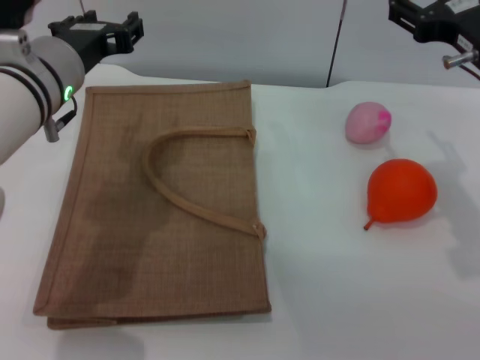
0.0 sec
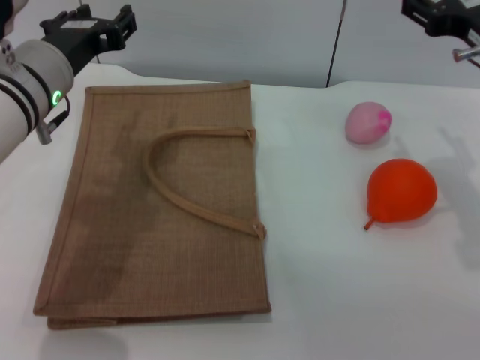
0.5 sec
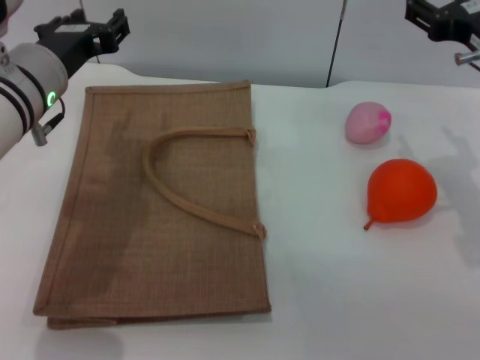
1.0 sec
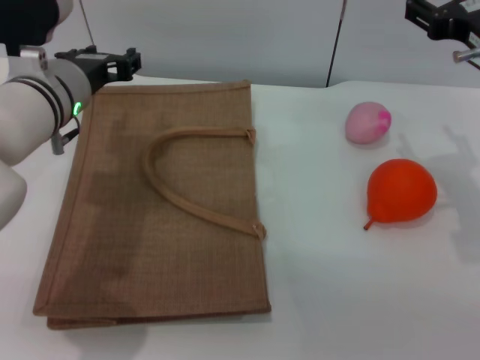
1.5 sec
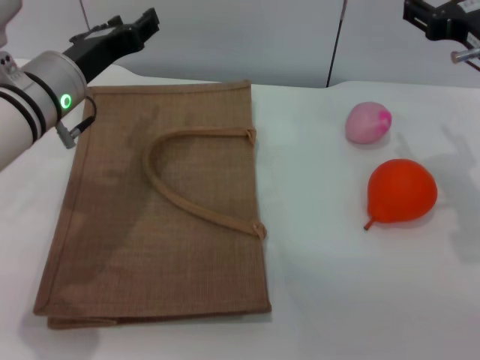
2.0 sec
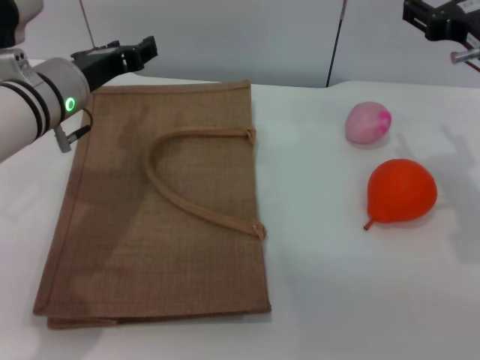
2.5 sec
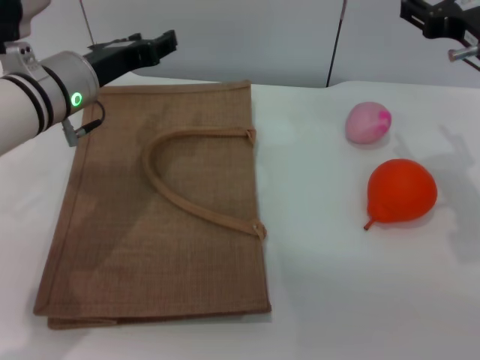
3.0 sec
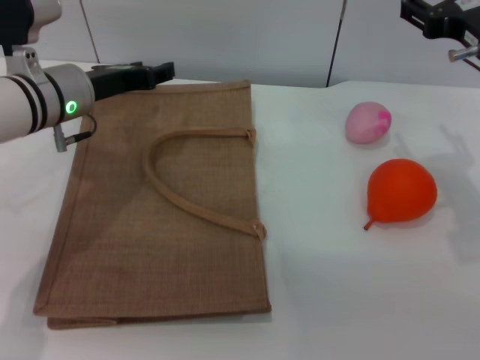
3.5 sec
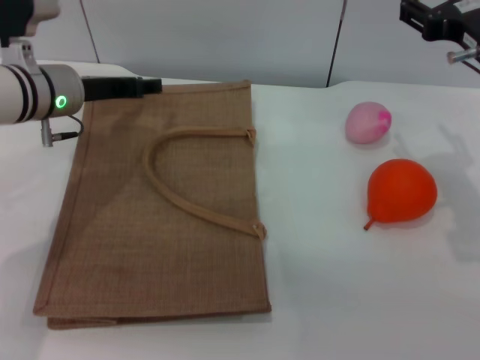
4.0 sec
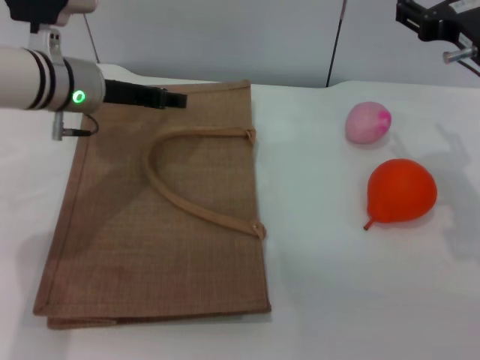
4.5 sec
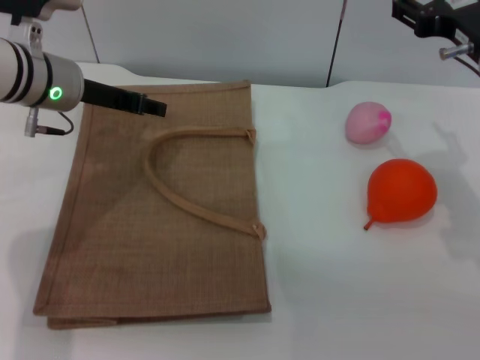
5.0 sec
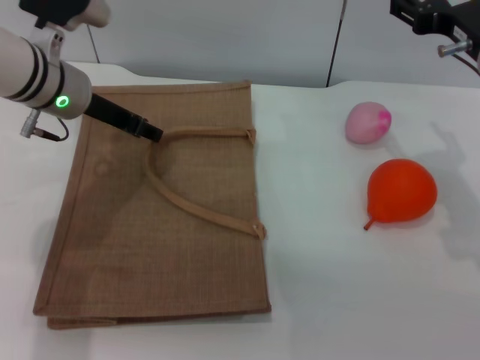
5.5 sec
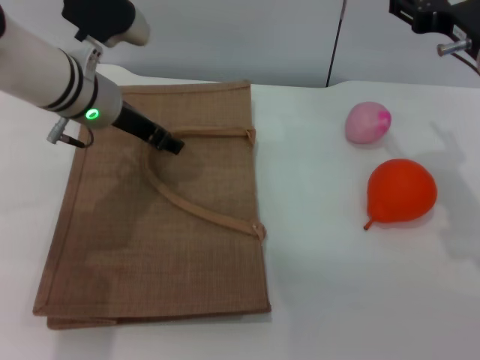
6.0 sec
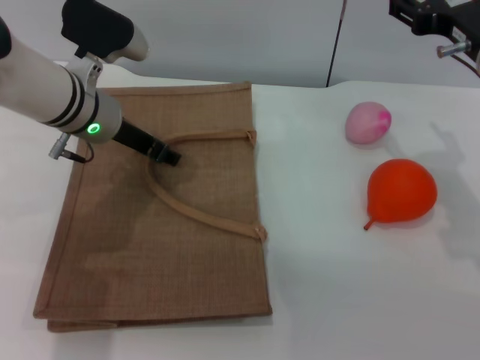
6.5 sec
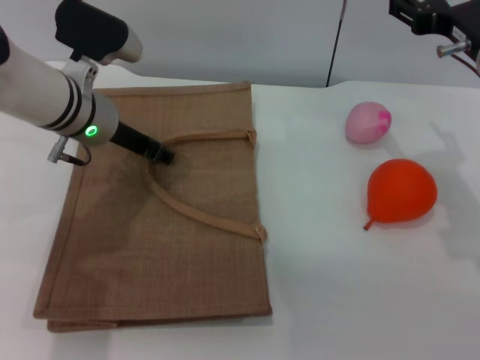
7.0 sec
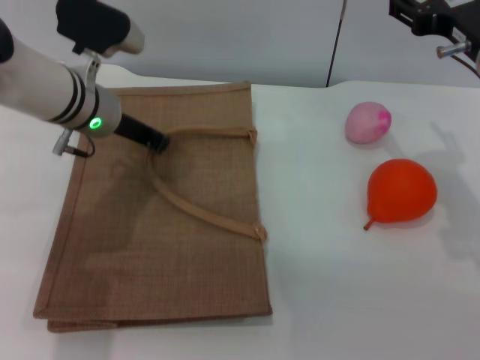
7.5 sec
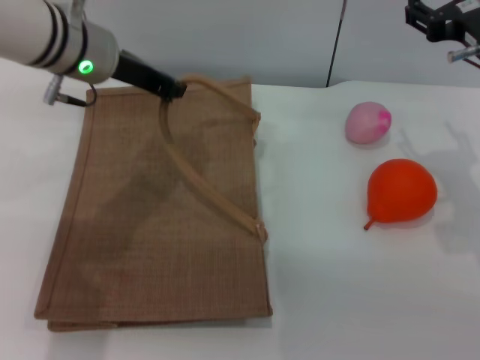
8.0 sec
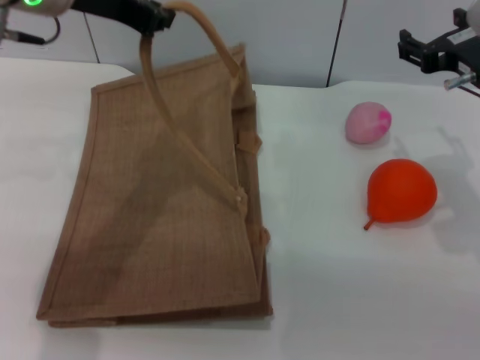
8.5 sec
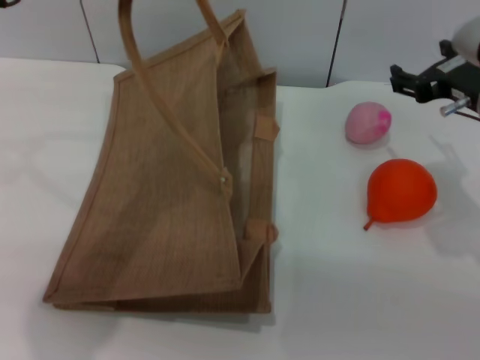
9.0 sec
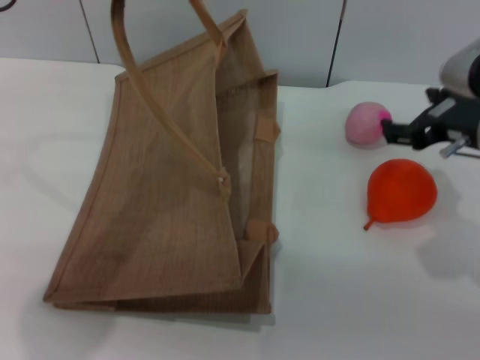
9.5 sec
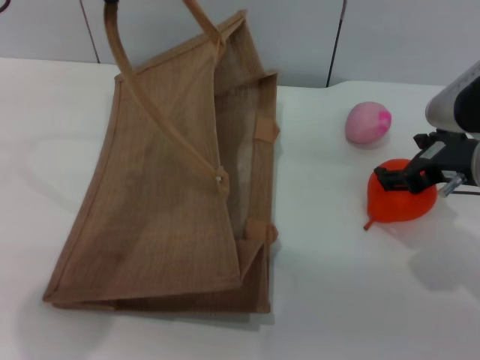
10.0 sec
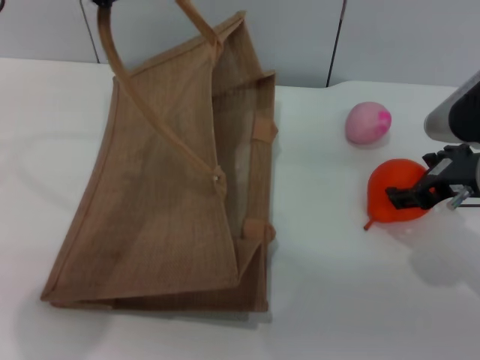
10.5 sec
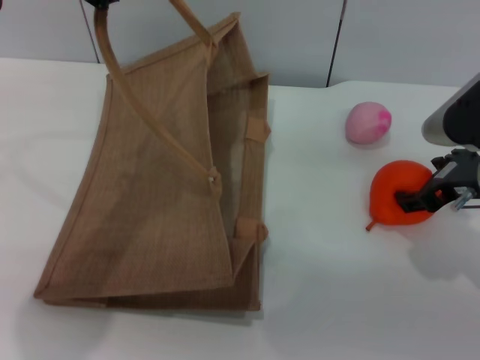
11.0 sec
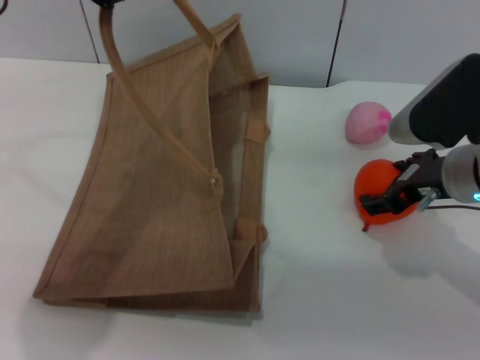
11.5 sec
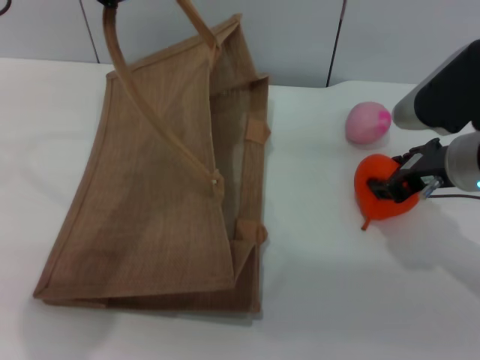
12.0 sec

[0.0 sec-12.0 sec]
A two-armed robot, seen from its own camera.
Task of the whole recording: pick up the orange and peach from the table and place it in the brown handbag.
Step, 0.0 sec to 8.5 sec: Lift the woven bag with the left gripper to open it.
2.0 sec to 4.0 sec: The left gripper shifts roughly 5 cm forward.
4.0 sec to 6.0 sec: The left gripper ends up roughly 5 cm from where it was.
6.0 sec to 8.0 sec: The left gripper goes approximately 5 cm upward, and closes up.
8.0 sec to 10.0 sec: The left gripper moves upward and backward, roughly 15 cm; the right gripper moves some 5 cm.
10.0 sec to 12.0 sec: The right gripper closes up.

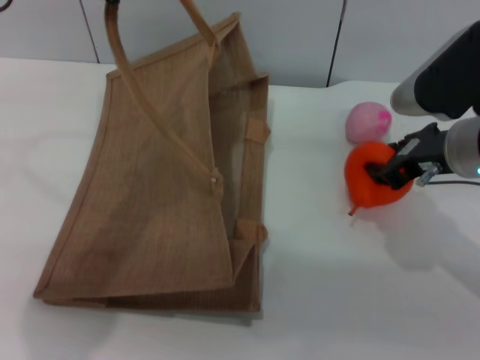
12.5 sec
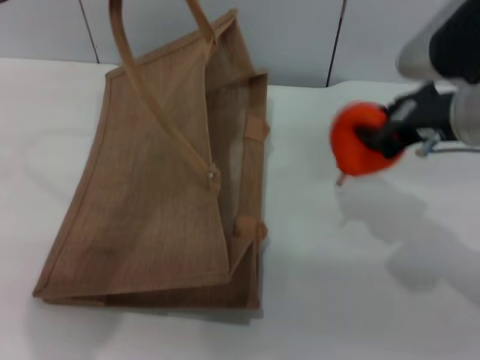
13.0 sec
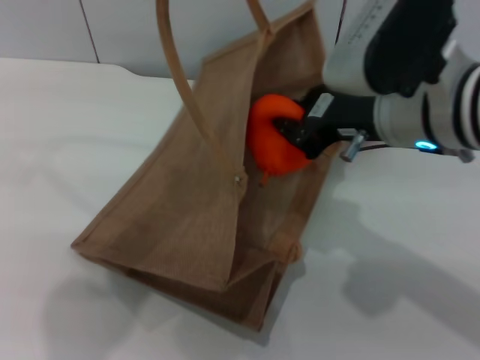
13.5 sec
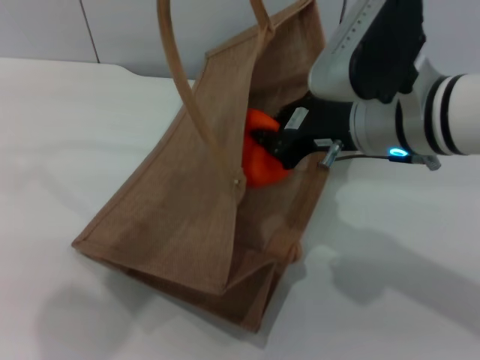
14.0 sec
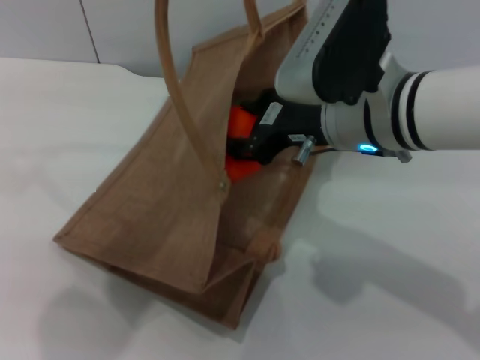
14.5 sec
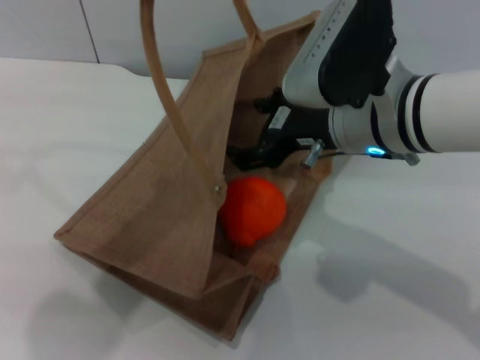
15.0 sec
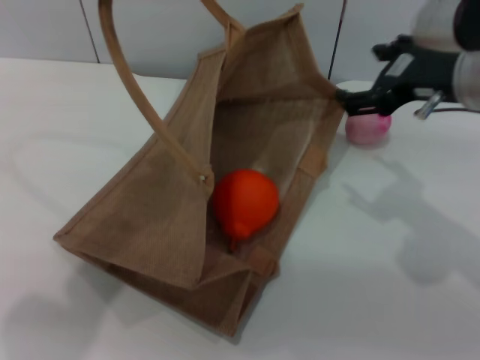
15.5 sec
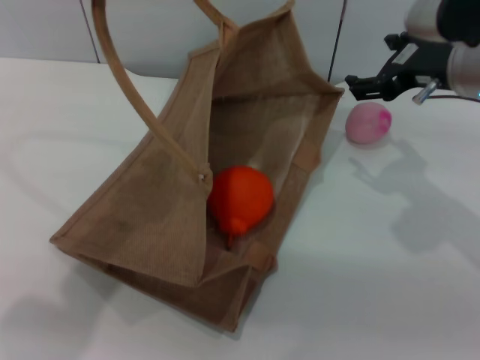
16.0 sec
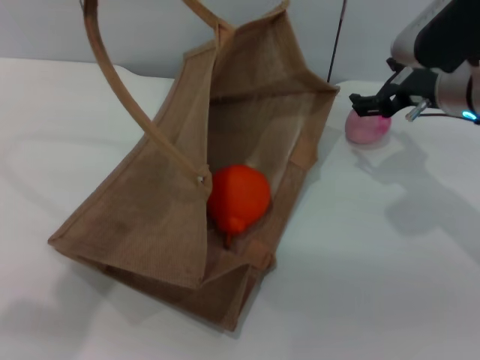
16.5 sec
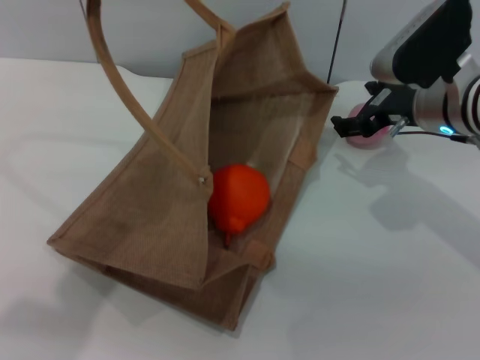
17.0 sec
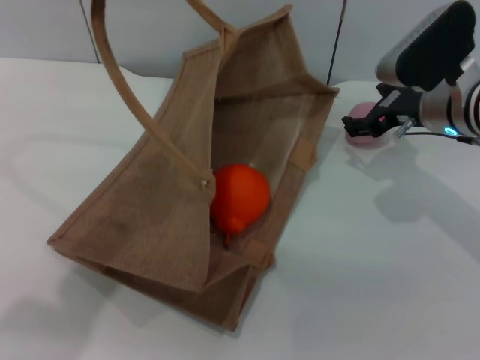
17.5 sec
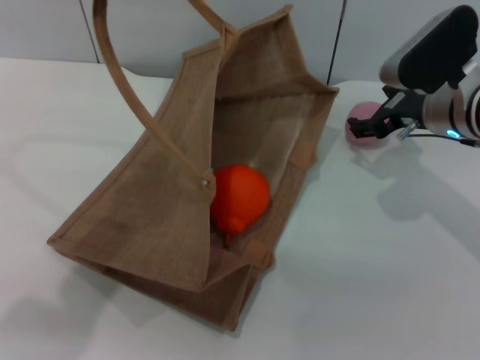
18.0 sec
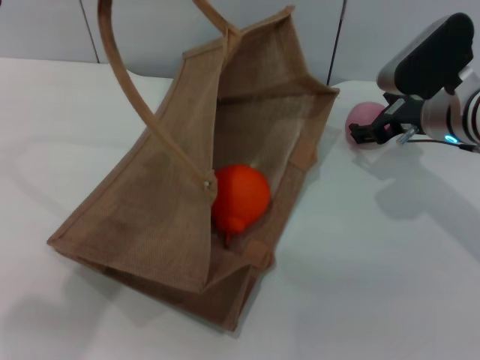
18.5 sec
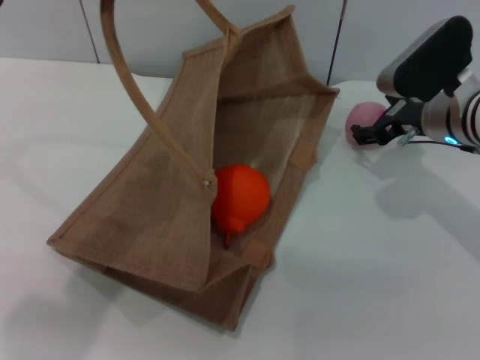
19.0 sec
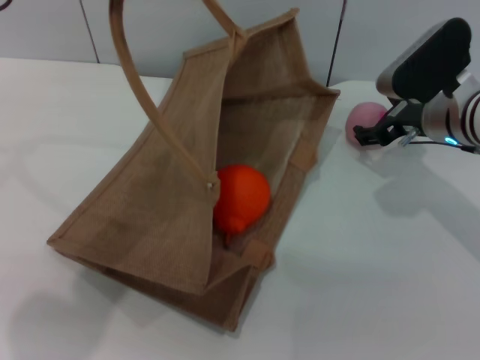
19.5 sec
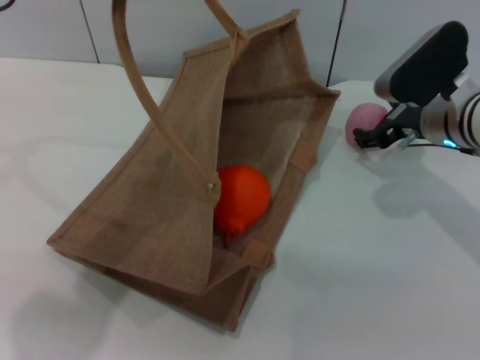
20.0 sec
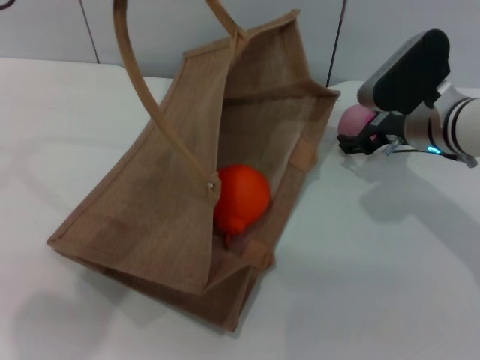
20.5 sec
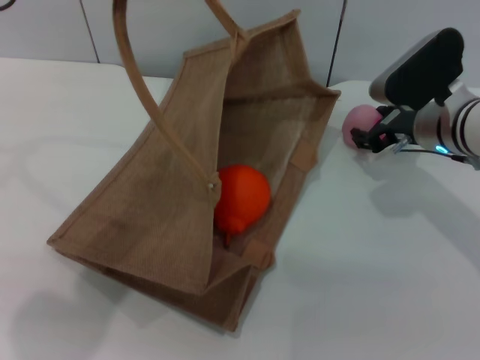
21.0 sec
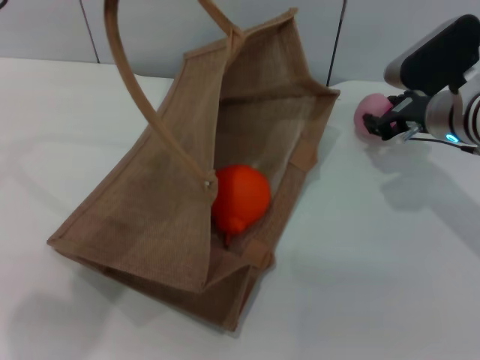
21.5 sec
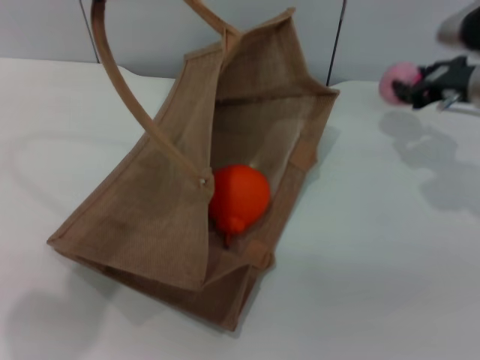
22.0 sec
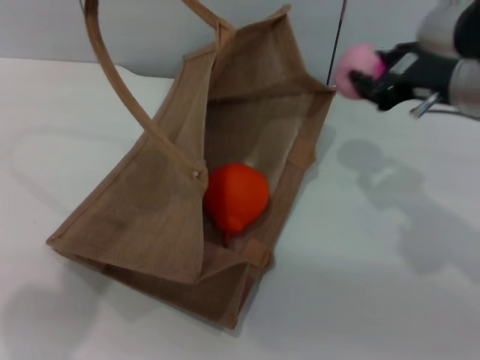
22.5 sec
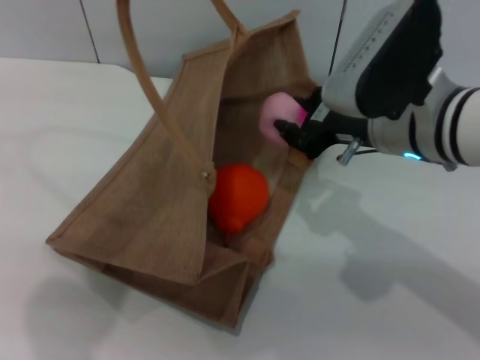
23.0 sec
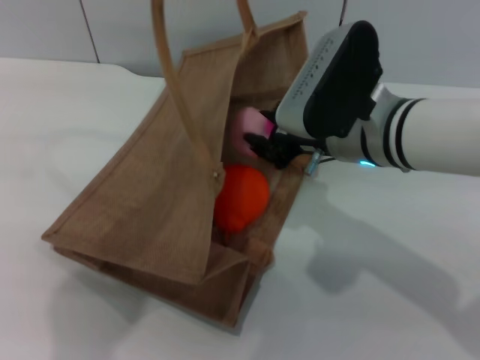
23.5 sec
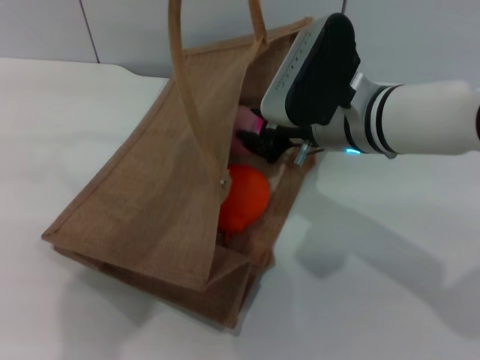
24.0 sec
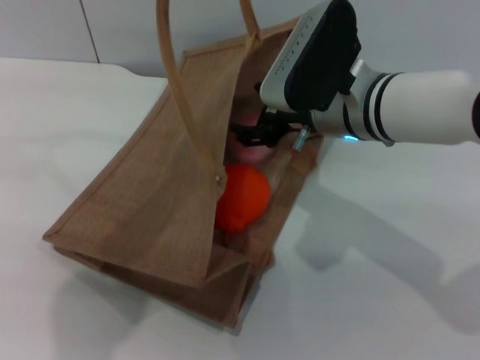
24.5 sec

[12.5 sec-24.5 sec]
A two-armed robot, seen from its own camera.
Task of the whole recording: pick up the orange and peach from the table and place it in the brown handbag.
Step, 13.0 sec to 15.0 sec: Place the orange into the woven bag with the right gripper.
Step, 15.5 sec to 22.0 sec: Pick up the peach with the right gripper.
12.5 sec to 14.5 sec: The right gripper moves to the left, some 10 cm.
14.5 sec to 16.5 sec: The right gripper travels to the right and forward by roughly 10 cm, and opens up; the left gripper travels to the left by about 5 cm.
16.5 sec to 18.5 sec: The right gripper goes approximately 5 cm downward.
18.5 sec to 20.5 sec: The grippers move only a little.
20.5 sec to 22.5 sec: The right gripper heads upward and backward, covering roughly 10 cm, and closes.
22.5 sec to 24.5 sec: The left gripper shifts some 5 cm to the right; the right gripper shifts roughly 10 cm to the left, and opens up.

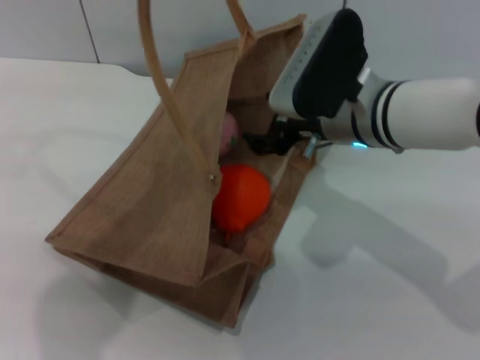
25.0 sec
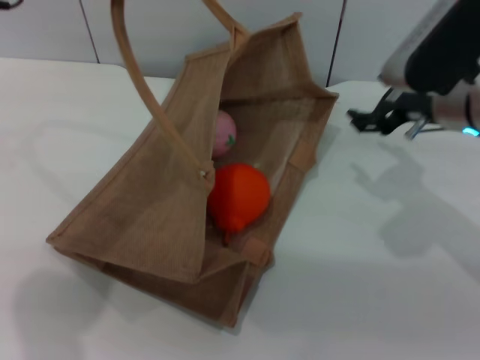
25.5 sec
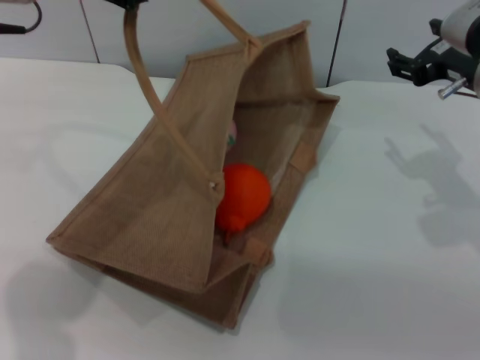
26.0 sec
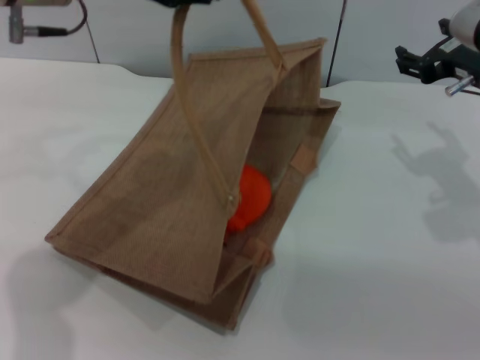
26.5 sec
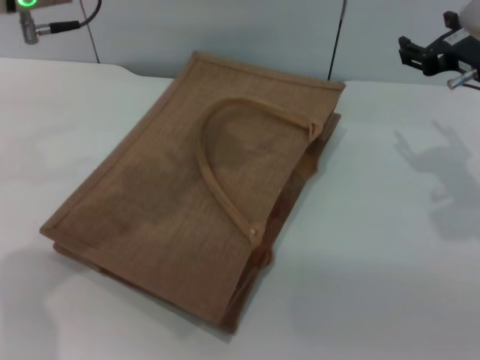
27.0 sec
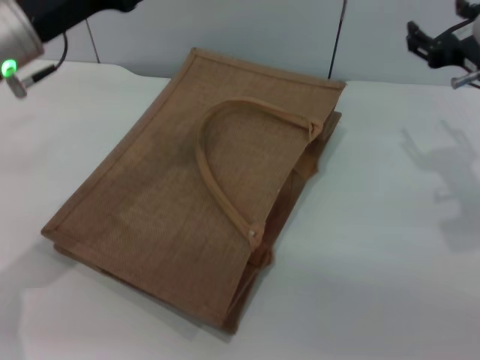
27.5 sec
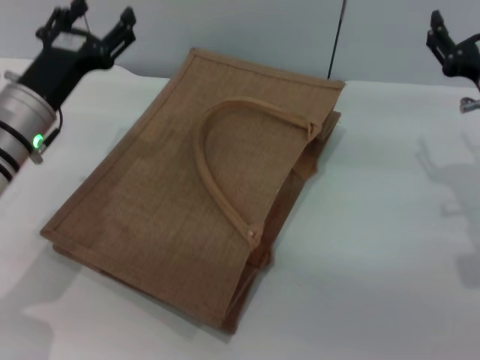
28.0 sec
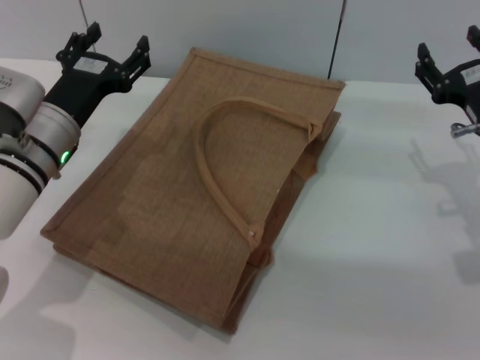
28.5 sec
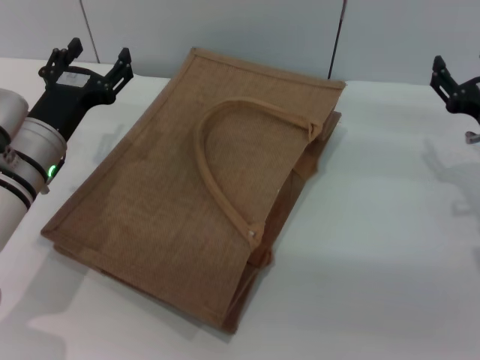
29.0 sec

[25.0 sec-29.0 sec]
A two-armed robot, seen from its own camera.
Task of the whole recording: pick up the orange and peach from the table and place it in the brown handbag.
Step, 25.5 sec to 27.0 sec: Lower the woven bag with the left gripper to close it.
25.0 sec to 27.0 sec: The left gripper moves downward, roughly 5 cm, and opens. Meanwhile the right gripper shifts roughly 15 cm to the right.
27.0 sec to 29.0 sec: The left gripper shifts roughly 20 cm downward. The right gripper goes about 10 cm downward.
